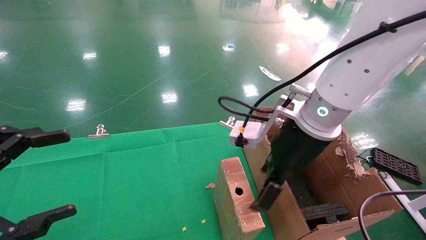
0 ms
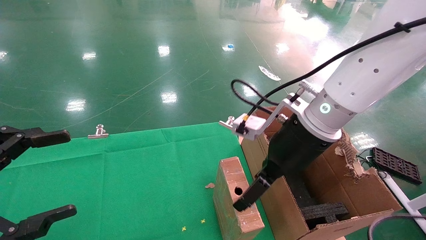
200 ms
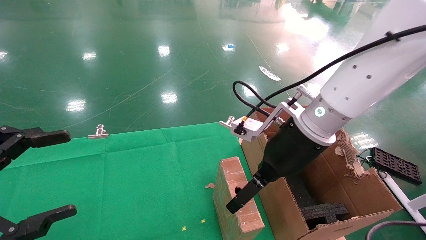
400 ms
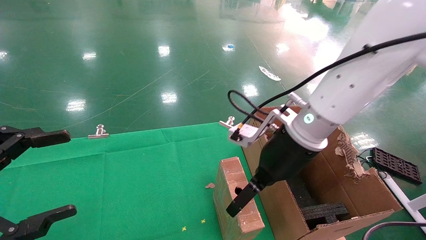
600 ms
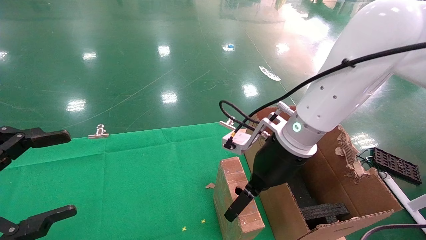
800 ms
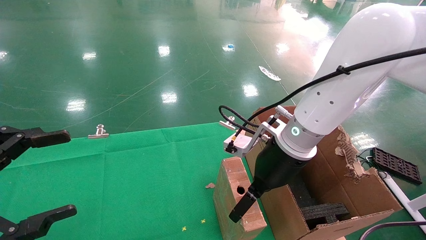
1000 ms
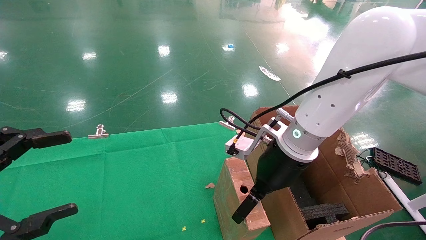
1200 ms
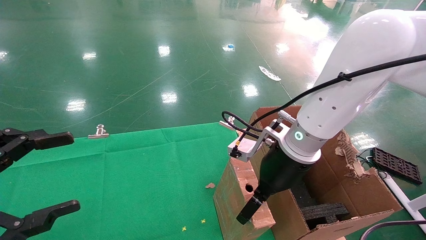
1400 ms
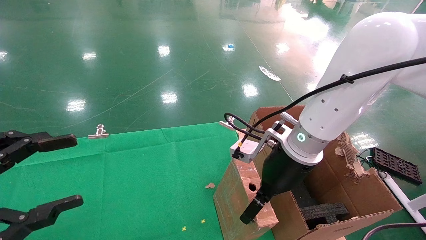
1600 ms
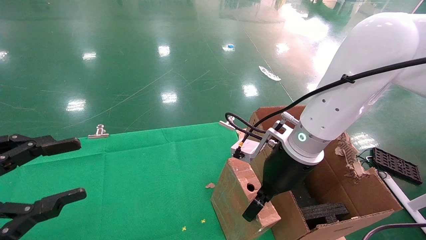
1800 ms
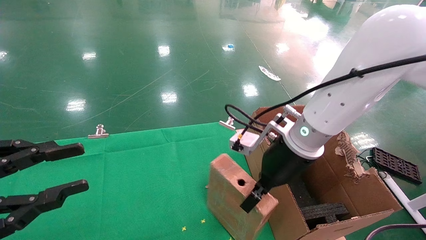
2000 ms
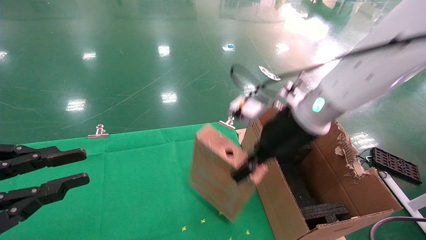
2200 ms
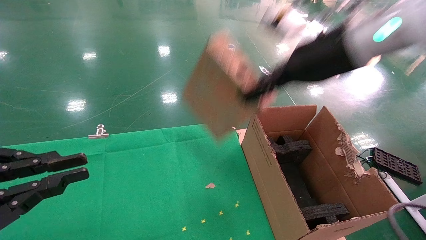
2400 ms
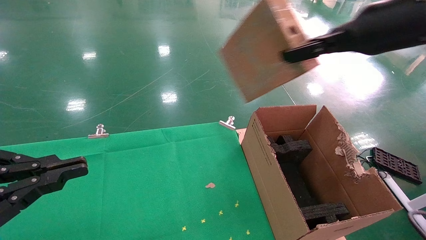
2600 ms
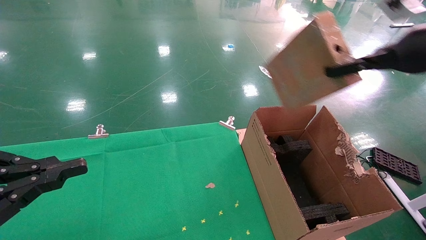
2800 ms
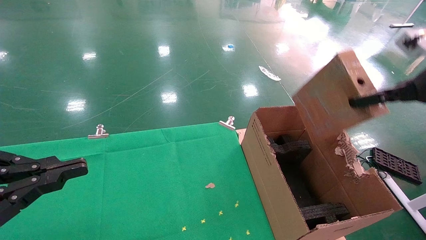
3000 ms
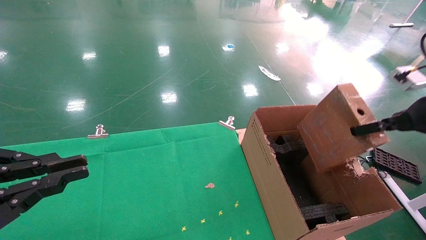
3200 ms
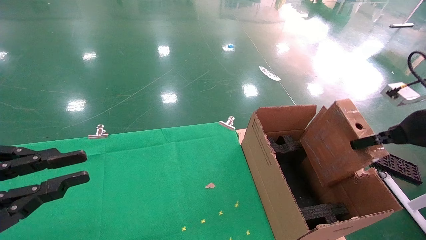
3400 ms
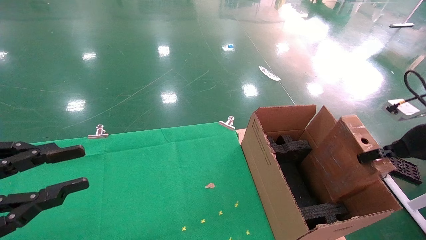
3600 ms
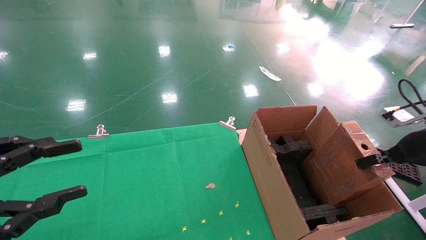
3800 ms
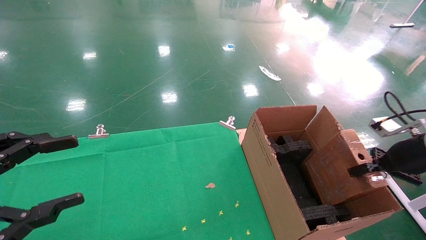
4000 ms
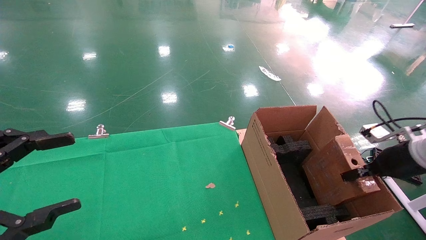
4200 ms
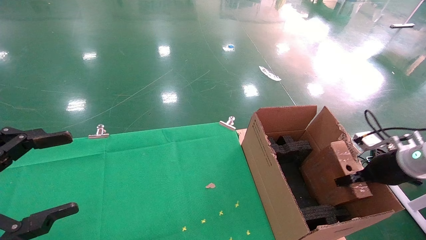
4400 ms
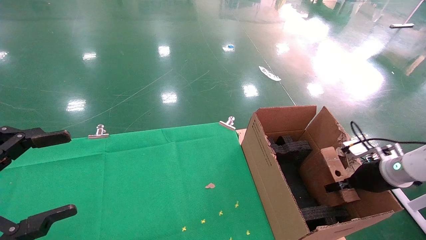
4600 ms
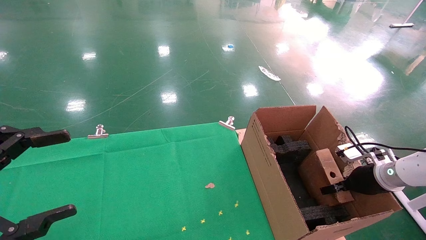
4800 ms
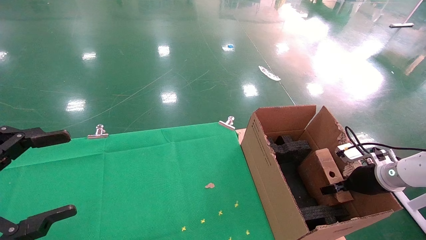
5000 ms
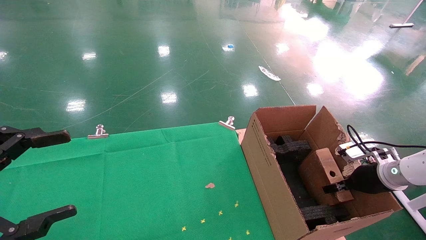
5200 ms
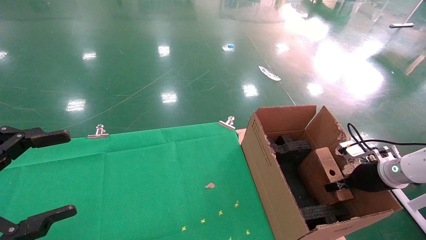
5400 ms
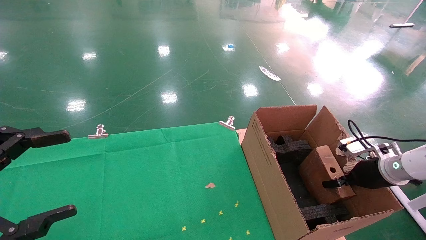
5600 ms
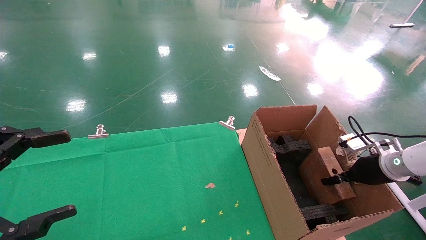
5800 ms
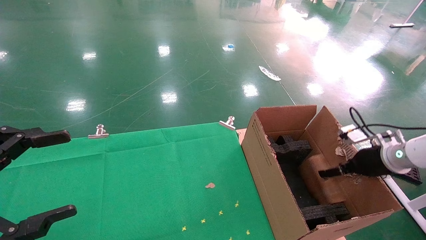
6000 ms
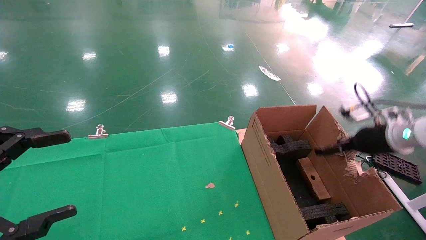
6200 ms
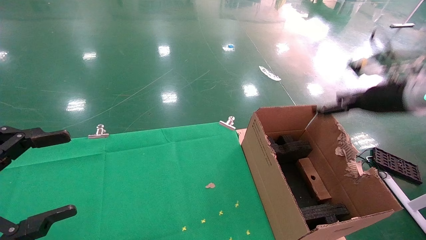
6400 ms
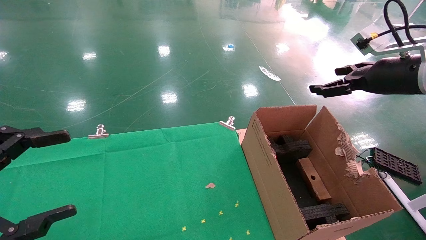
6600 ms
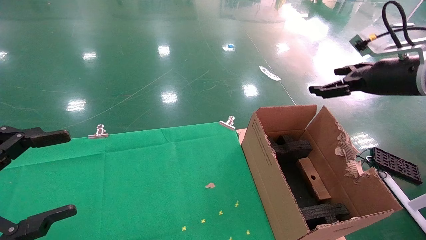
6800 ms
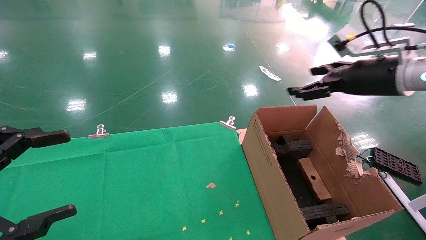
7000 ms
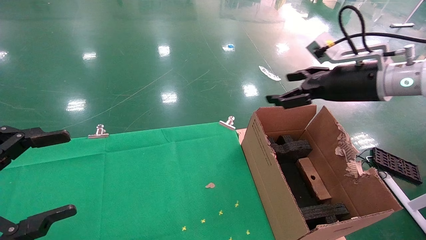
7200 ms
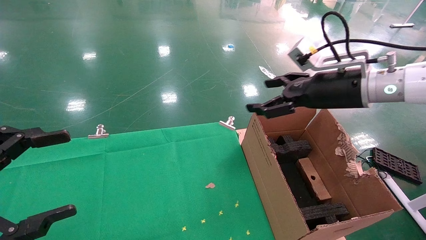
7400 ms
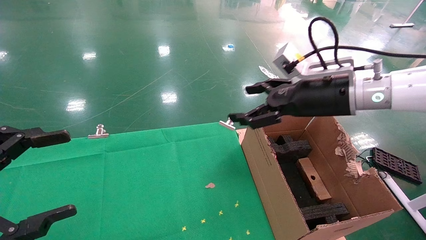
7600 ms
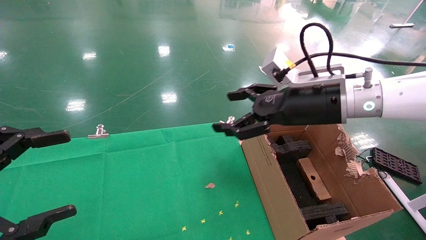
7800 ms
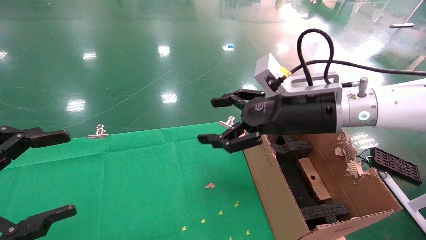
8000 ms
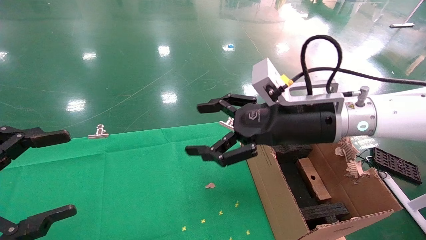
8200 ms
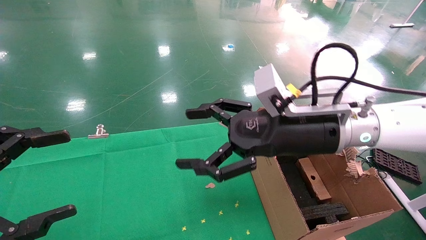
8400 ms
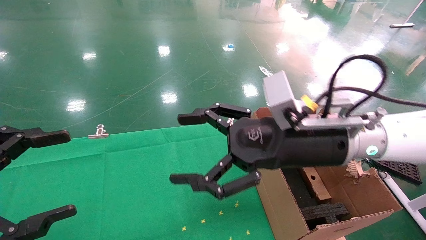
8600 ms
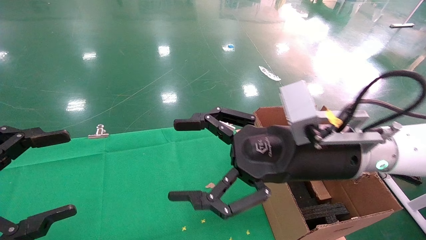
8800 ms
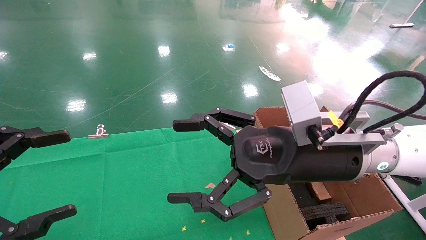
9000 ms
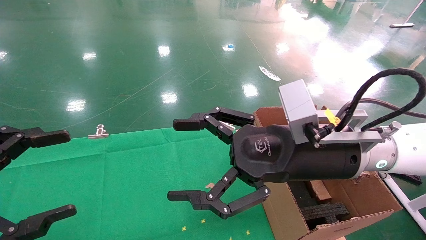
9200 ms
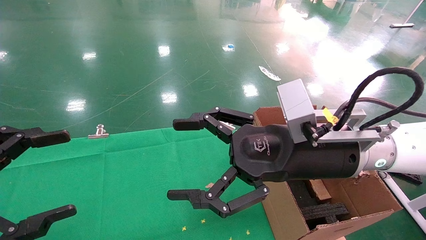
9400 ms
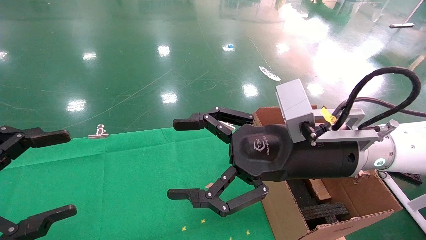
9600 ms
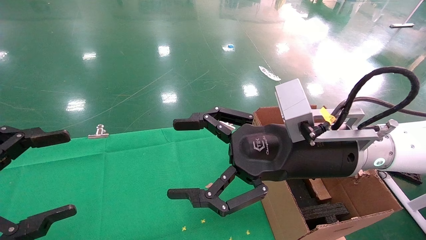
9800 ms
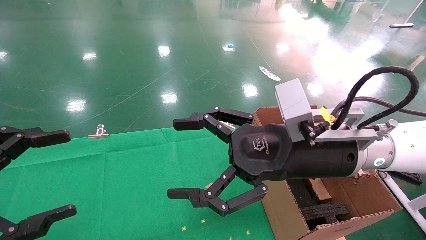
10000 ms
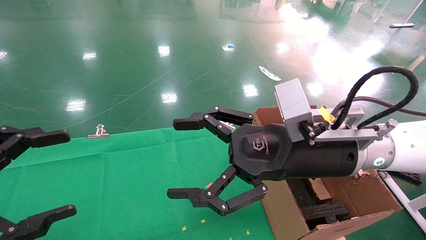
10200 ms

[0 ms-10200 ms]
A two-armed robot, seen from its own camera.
Task of the whole recording: using a robotic arm to pick up a cardboard box and palace it the carton.
Step, 2000 ms to 6400 ms: Place the mouse and the power cord paper box into the container.
0 ms to 1400 ms: The right gripper heads downward, covering some 5 cm.
1400 ms to 3000 ms: The right gripper shifts about 30 cm to the right and upward, and closes, while the left gripper closes its fingers.
3000 ms to 4400 ms: The left gripper opens. Meanwhile the right gripper shifts approximately 20 cm downward.
4400 ms to 5800 ms: The right gripper opens.
5800 ms to 7200 ms: The right gripper goes about 25 cm upward and to the left, and opens its fingers.
7200 ms to 8800 ms: The right gripper travels to the left, backward and downward by about 20 cm.
8800 ms to 10200 ms: Both grippers stay about where they are.

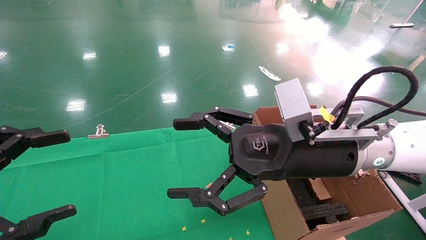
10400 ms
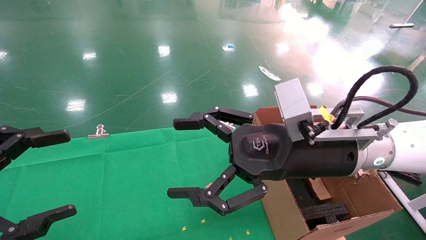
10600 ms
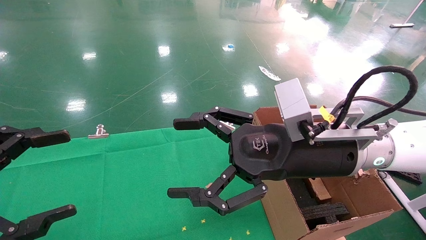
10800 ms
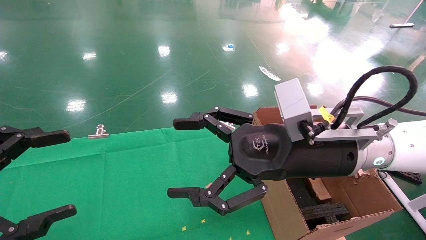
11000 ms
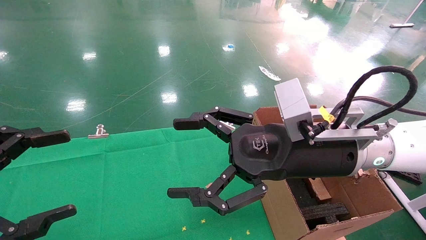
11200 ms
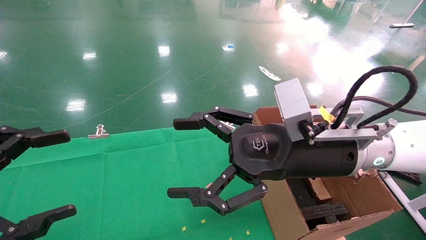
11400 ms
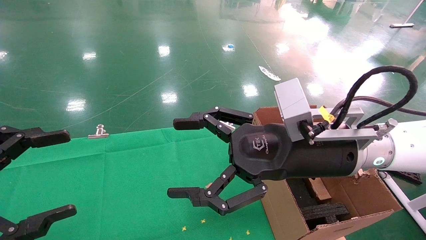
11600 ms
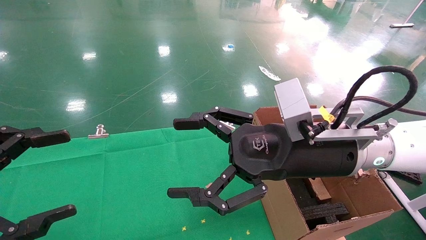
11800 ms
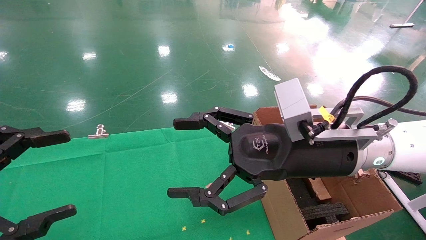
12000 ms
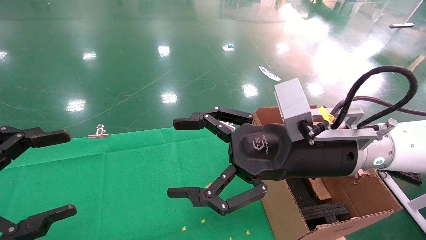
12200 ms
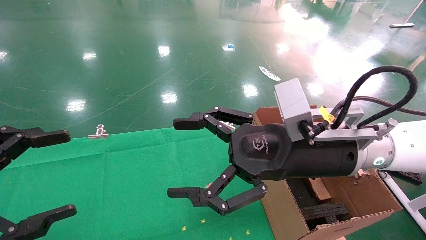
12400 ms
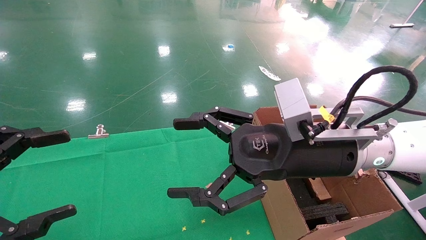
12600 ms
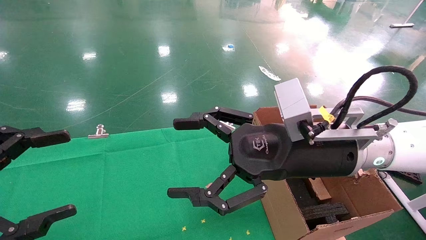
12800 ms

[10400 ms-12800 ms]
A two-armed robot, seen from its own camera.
Task of the whole recording: using a robotic arm to pick up a cardboard box and palace it the carton.
10400 ms to 12800 ms: Both grippers stay about where they are.
